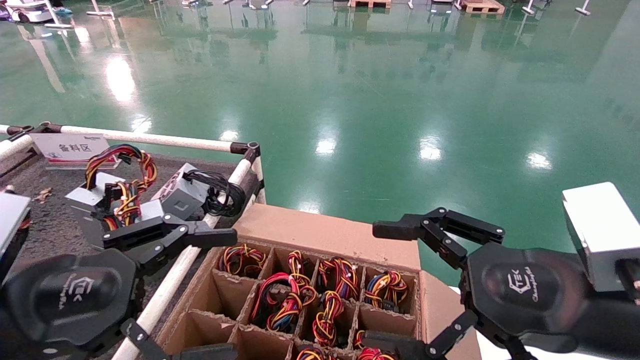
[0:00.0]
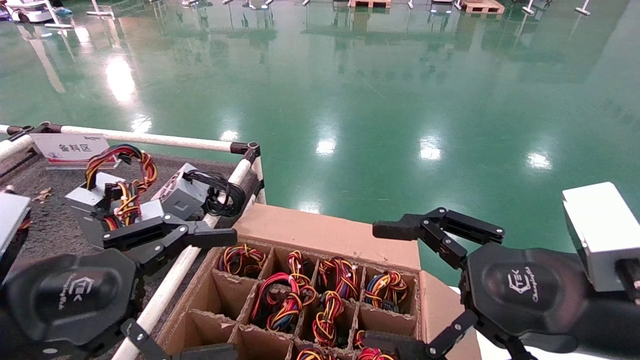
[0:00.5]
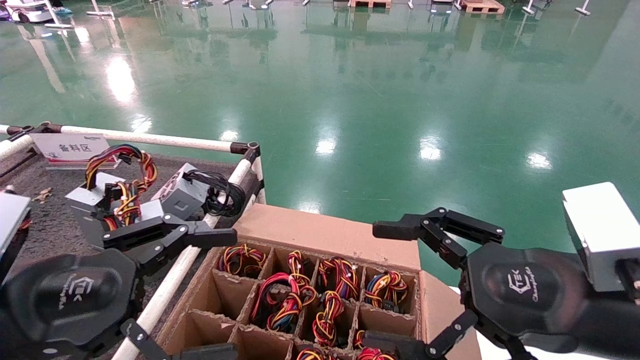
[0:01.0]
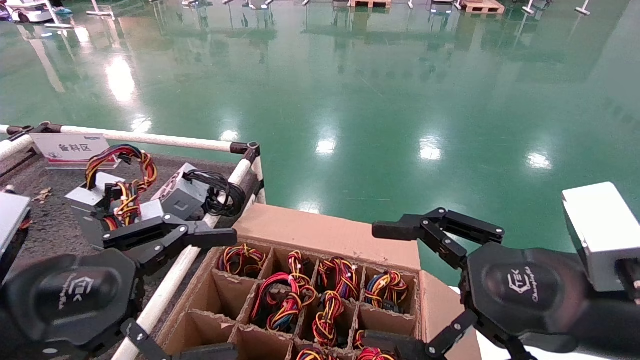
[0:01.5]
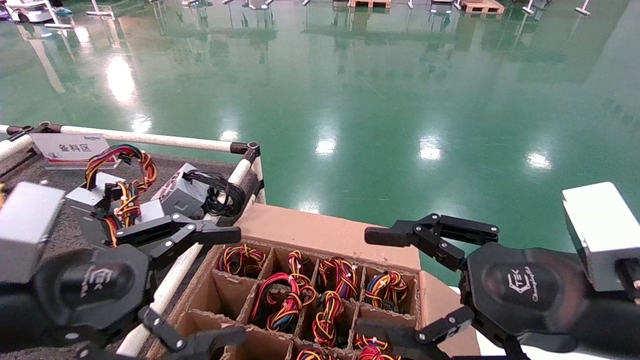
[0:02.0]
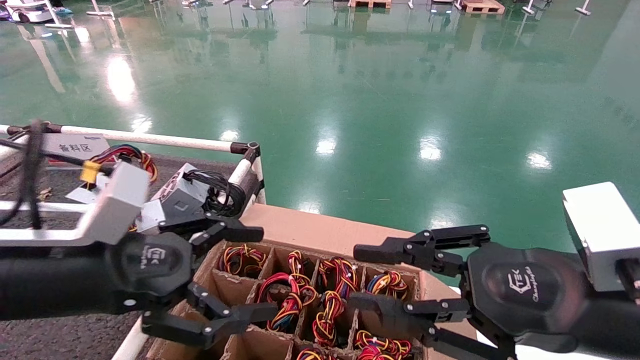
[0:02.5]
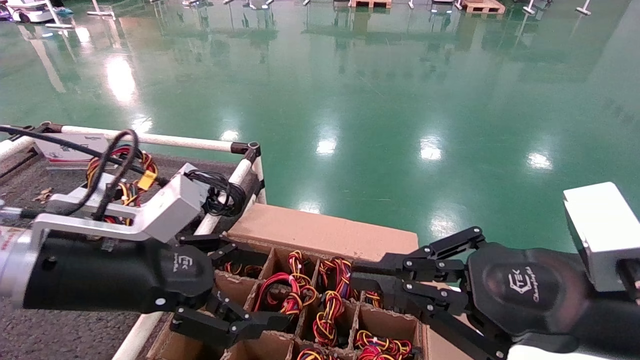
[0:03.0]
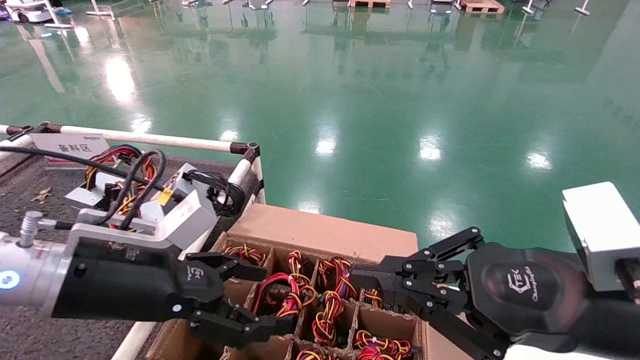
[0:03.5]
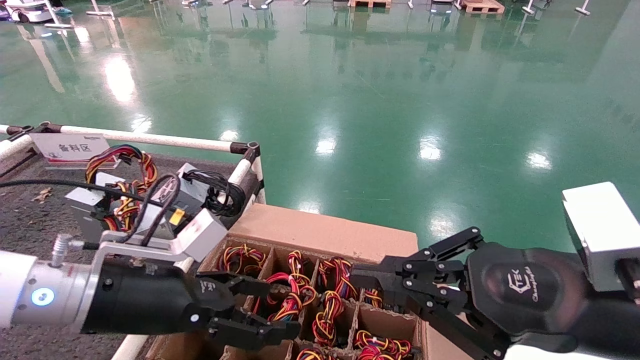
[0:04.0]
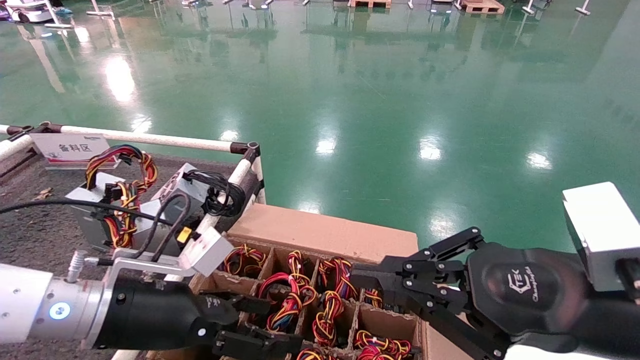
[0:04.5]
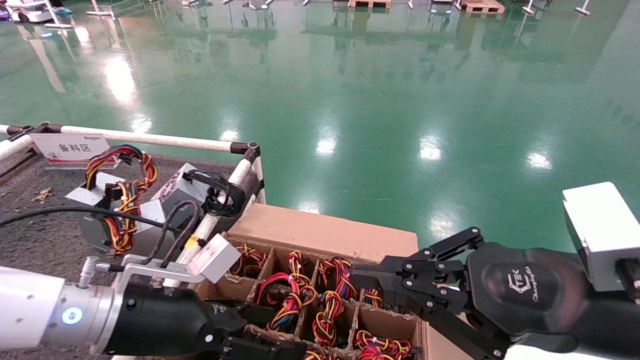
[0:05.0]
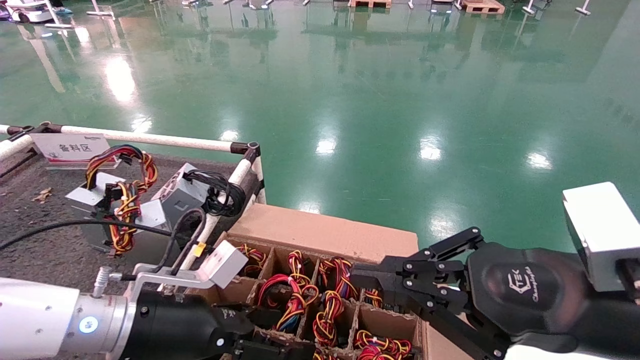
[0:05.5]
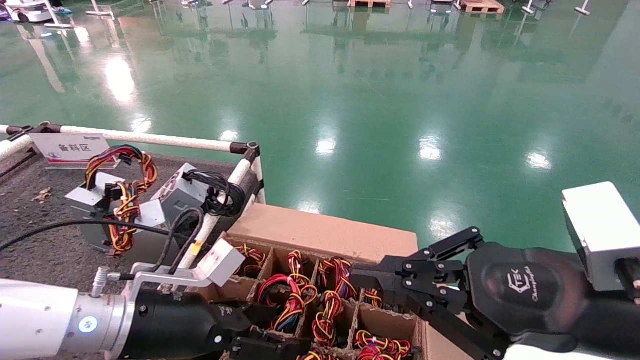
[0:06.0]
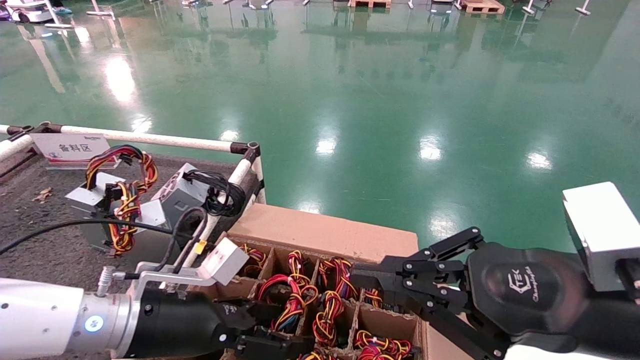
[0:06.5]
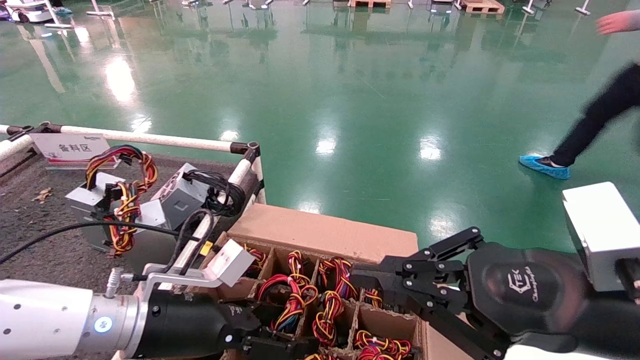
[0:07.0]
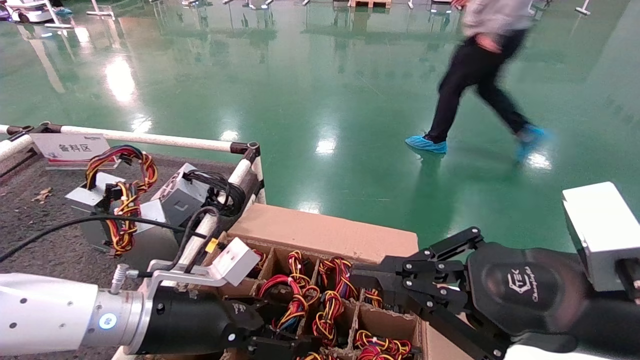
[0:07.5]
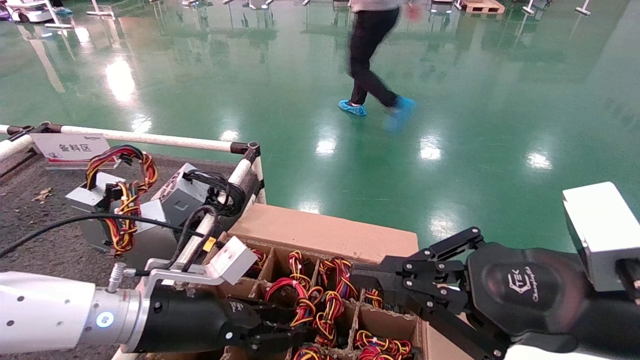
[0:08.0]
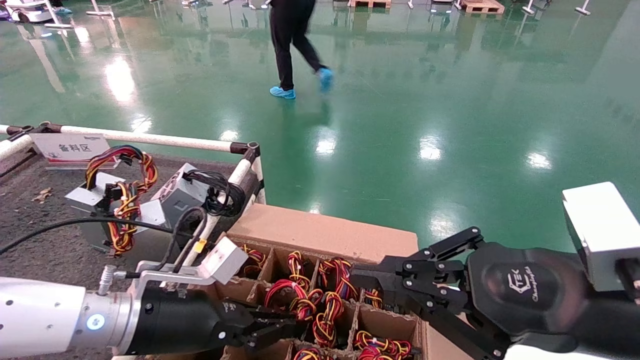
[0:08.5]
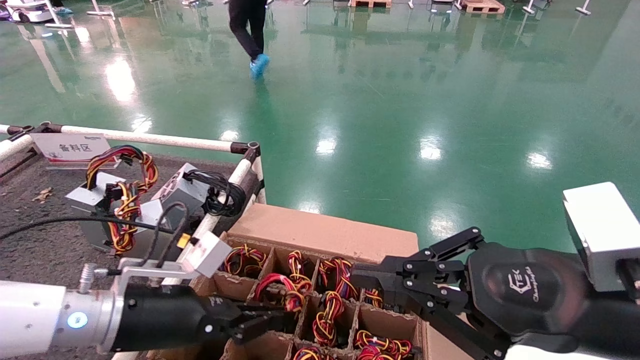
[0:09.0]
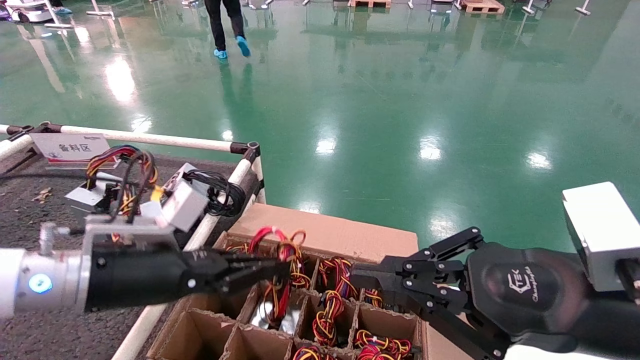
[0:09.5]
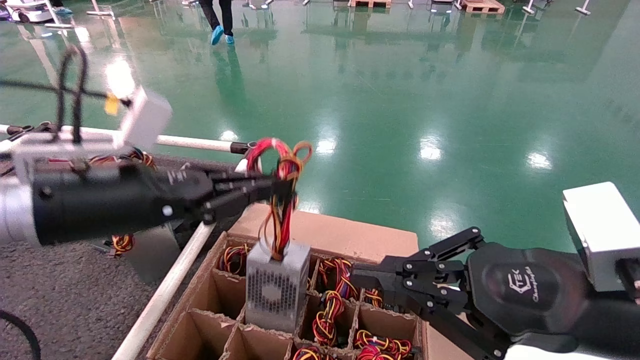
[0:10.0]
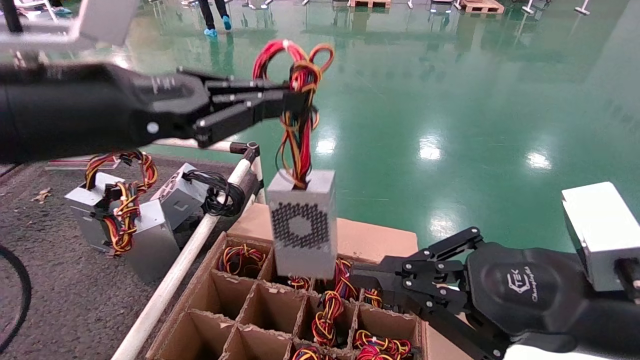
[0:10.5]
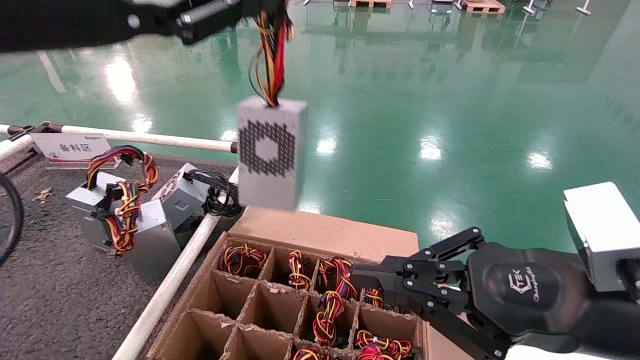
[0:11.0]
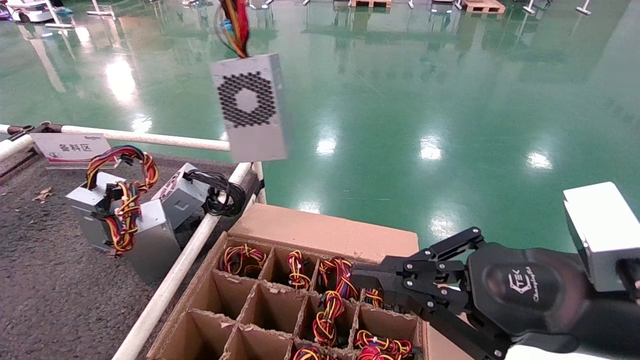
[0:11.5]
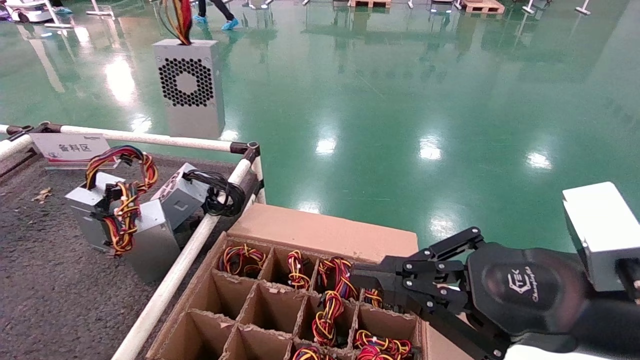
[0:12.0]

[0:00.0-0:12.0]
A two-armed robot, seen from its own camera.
Step, 0:00.0 to 0:08.5: Grasp the battery.
0:00.0 to 0:02.0: The grippers move only a little.
0:02.0 to 0:04.0: The left gripper goes roughly 10 cm forward and to the right; the right gripper closes.
0:04.0 to 0:06.0: The left gripper shifts by approximately 5 cm.
0:06.0 to 0:08.0: The left gripper closes its fingers.
0:08.0 to 0:10.0: The left gripper shifts about 15 cm upward, and closes up.
0:10.0 to 0:12.0: The left gripper is displaced upward by approximately 20 cm.

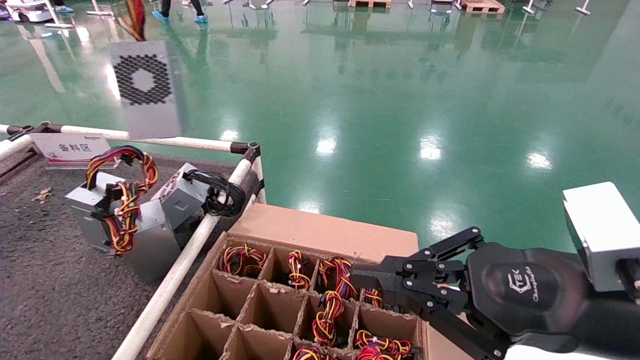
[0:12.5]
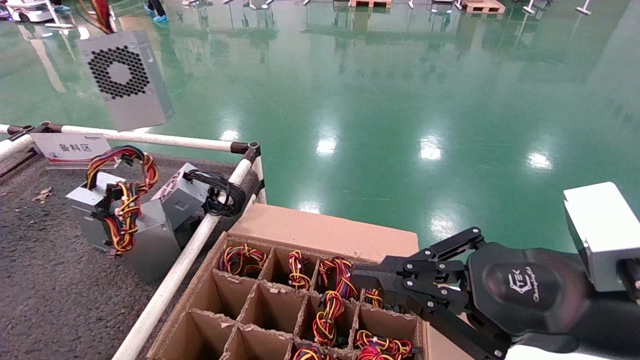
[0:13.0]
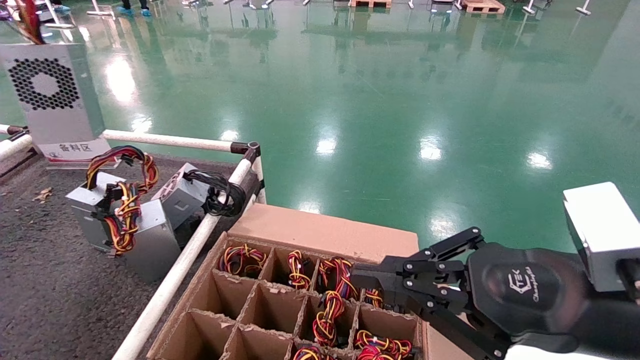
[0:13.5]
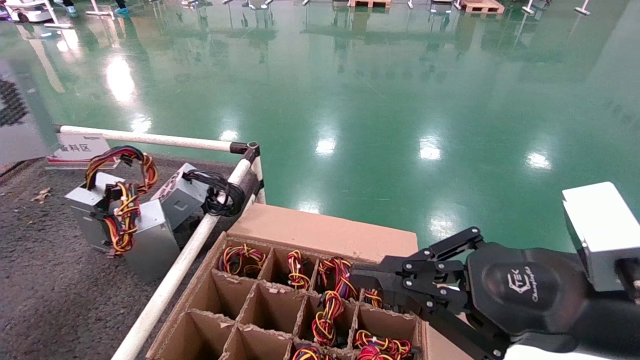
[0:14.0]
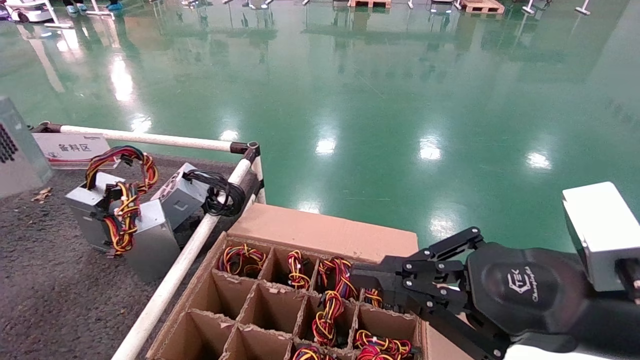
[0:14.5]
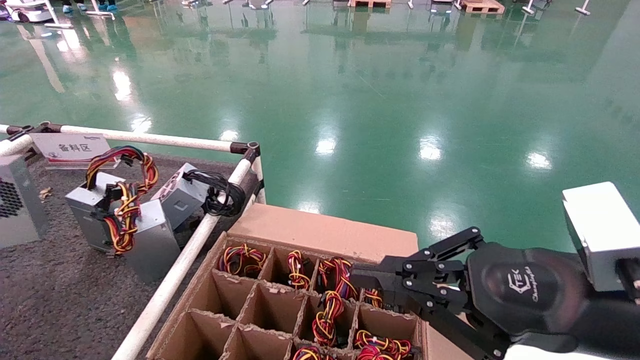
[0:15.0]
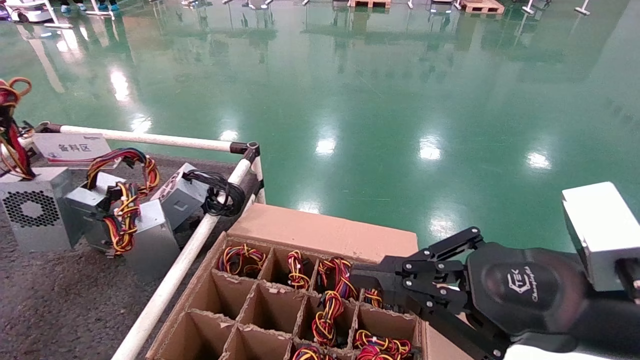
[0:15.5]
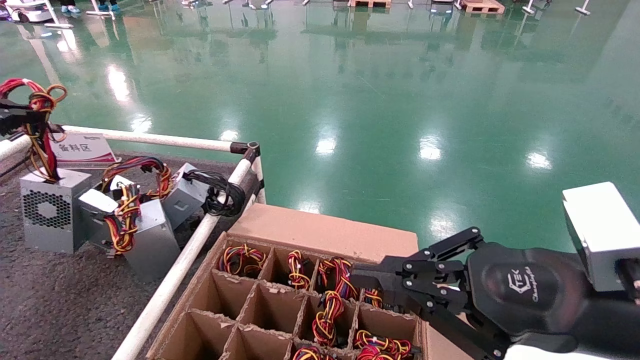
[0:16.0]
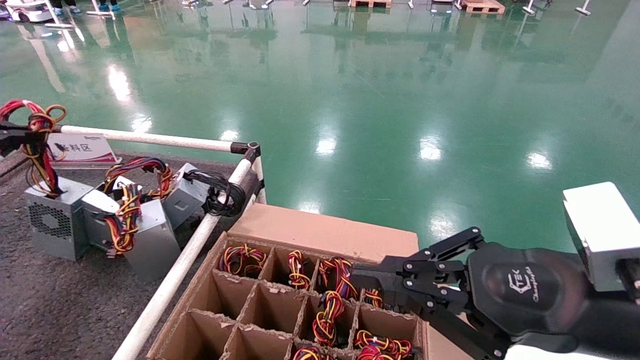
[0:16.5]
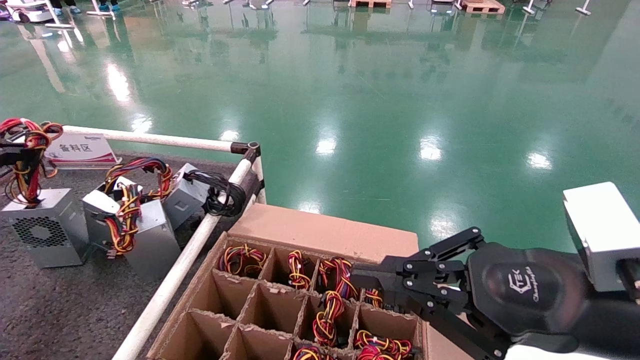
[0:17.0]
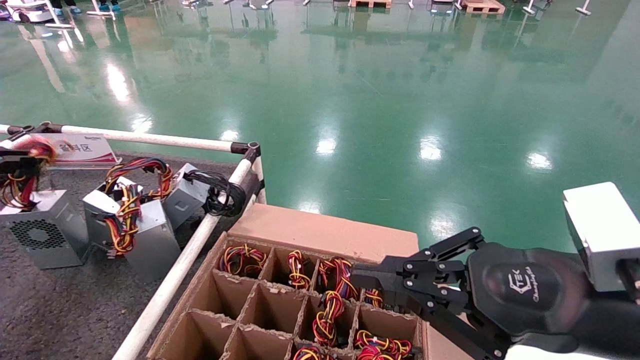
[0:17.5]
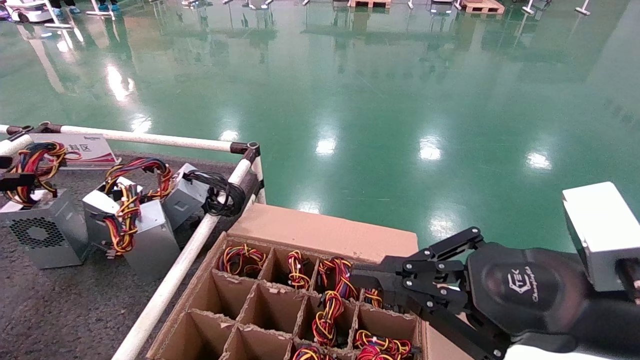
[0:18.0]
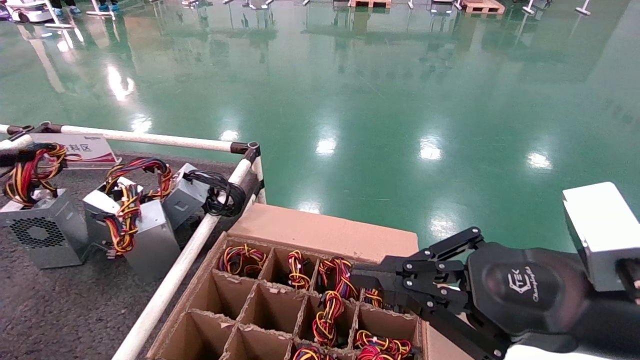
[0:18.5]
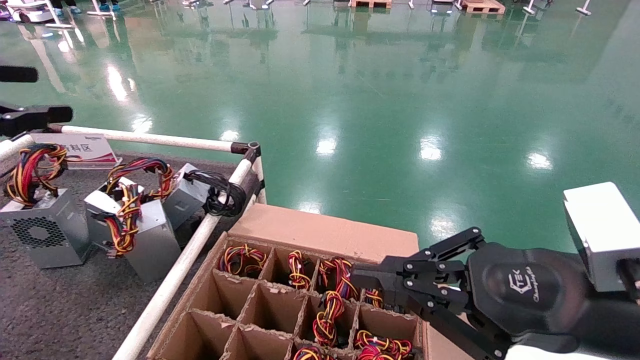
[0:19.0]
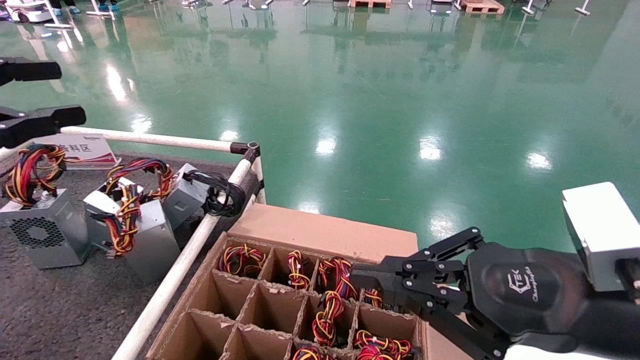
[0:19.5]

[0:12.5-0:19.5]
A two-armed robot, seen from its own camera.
Step, 0:12.5 to 0:17.5: Place the battery on the shelf.
0:12.5 to 0:14.5: The left gripper heads to the left, covering roughly 20 cm.
0:14.5 to 0:16.0: The left gripper moves downward and forward, some 10 cm.
0:16.0 to 0:17.5: The left gripper goes approximately 5 cm downward.
0:17.5 to 0:19.5: The left gripper shifts approximately 10 cm to the right, and opens up.
